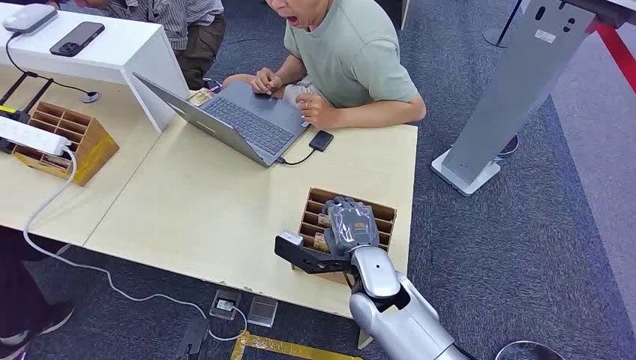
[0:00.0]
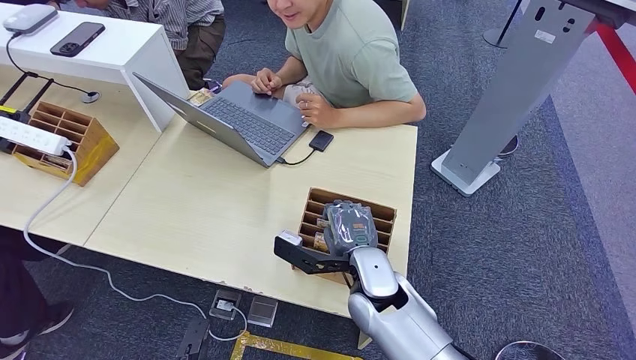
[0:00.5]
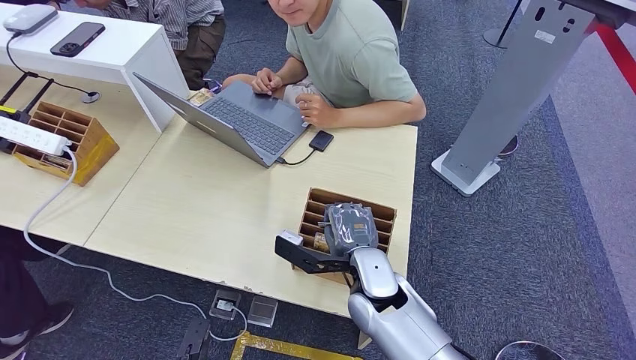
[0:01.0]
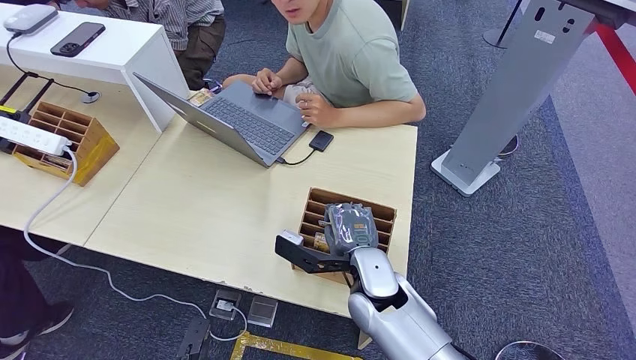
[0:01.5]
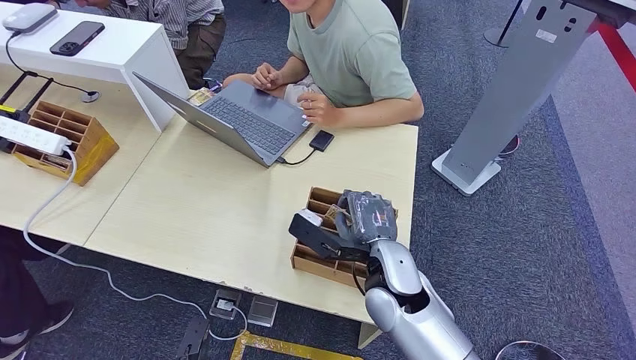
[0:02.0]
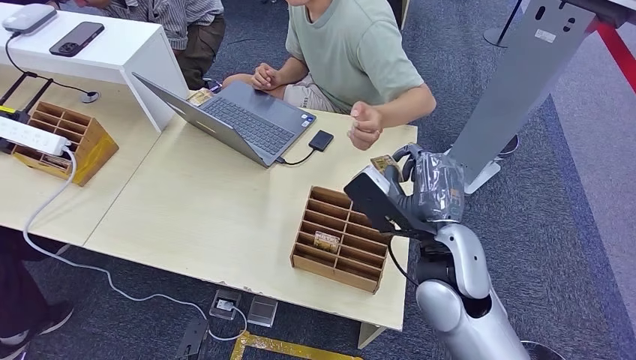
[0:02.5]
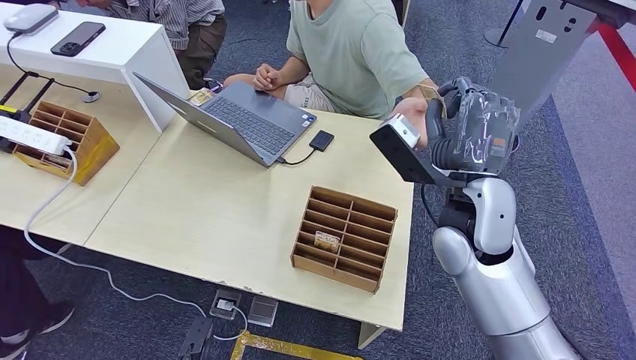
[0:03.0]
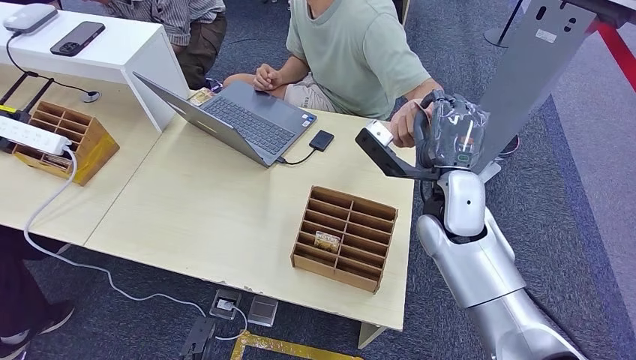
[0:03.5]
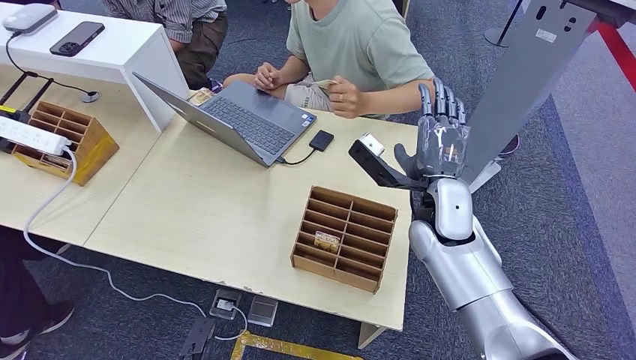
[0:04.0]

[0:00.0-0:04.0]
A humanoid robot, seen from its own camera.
Step, 0:00.0 to 0:02.0: Pick up the key card from the card box.
Step, 0:03.0 to 0:04.0: Hand the key card to the target.
0:02.0 to 0:04.0: The right hand is displaced forward, to the right and upward by some 15 cm.
